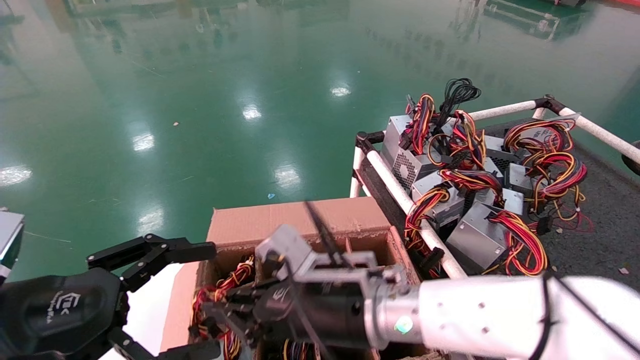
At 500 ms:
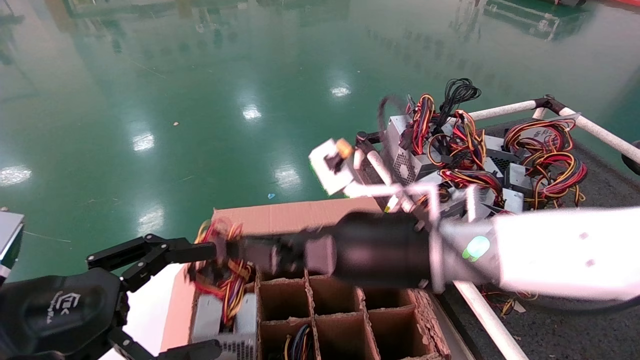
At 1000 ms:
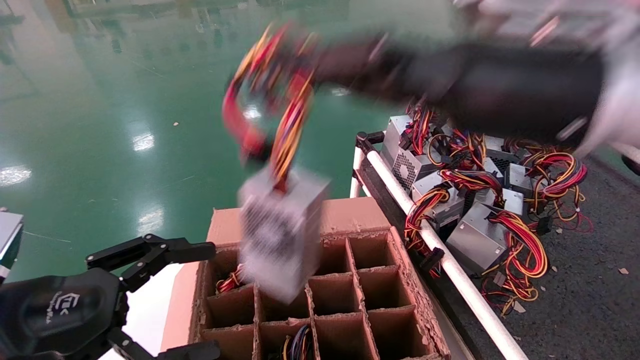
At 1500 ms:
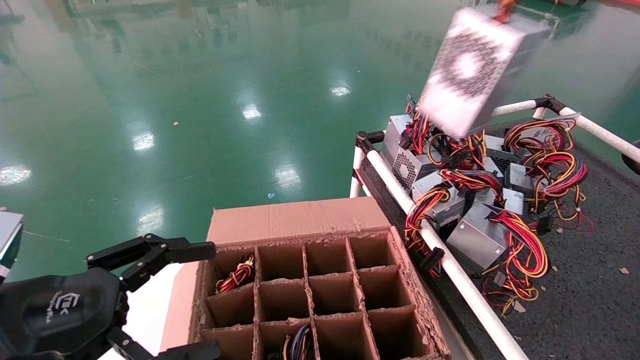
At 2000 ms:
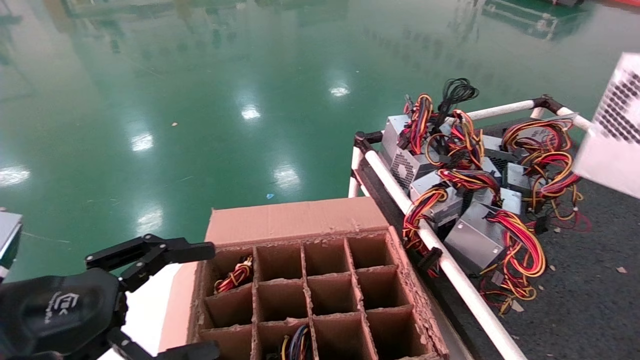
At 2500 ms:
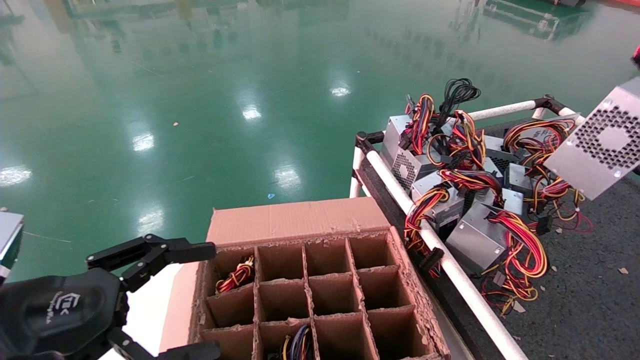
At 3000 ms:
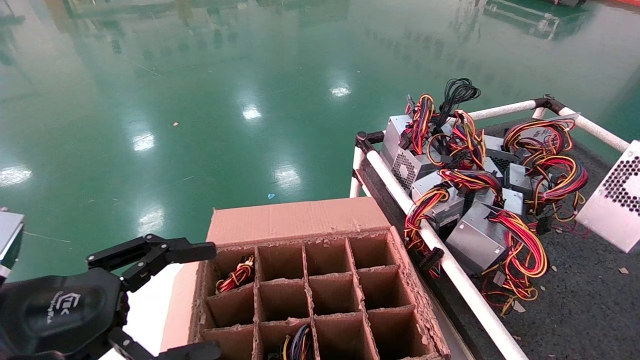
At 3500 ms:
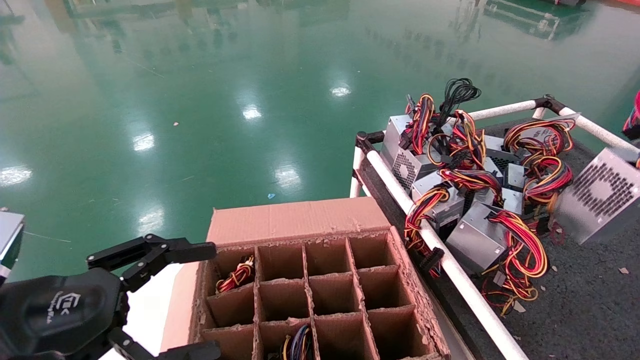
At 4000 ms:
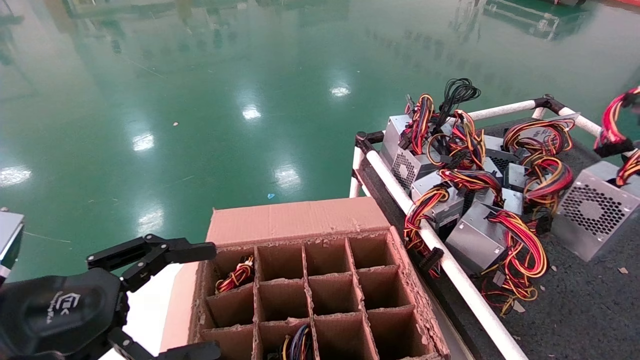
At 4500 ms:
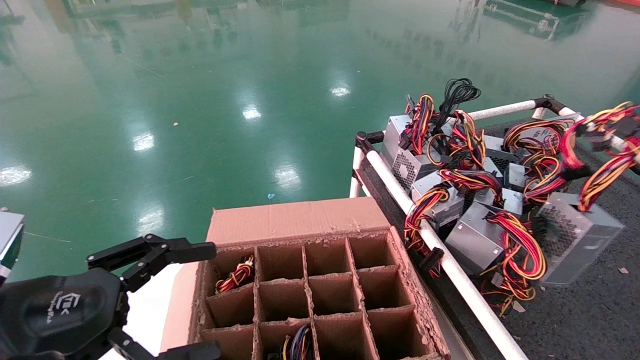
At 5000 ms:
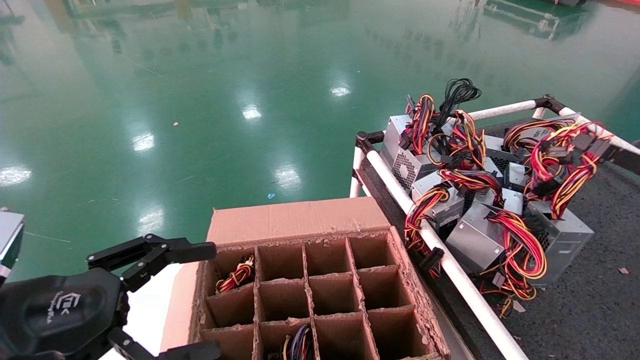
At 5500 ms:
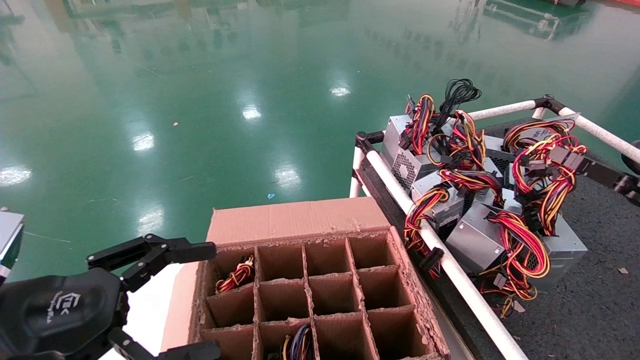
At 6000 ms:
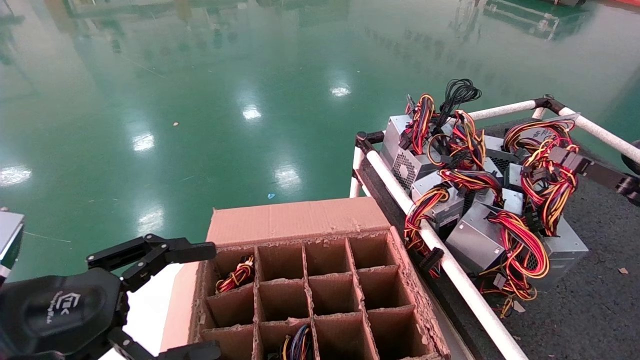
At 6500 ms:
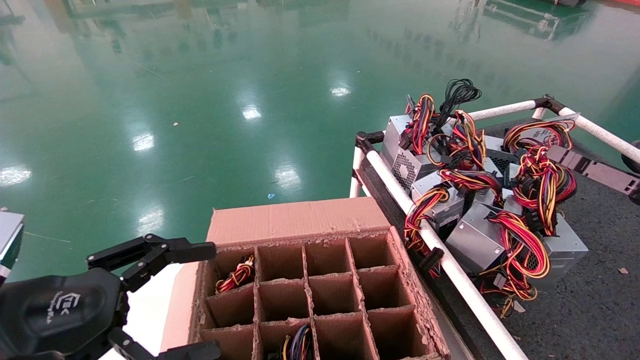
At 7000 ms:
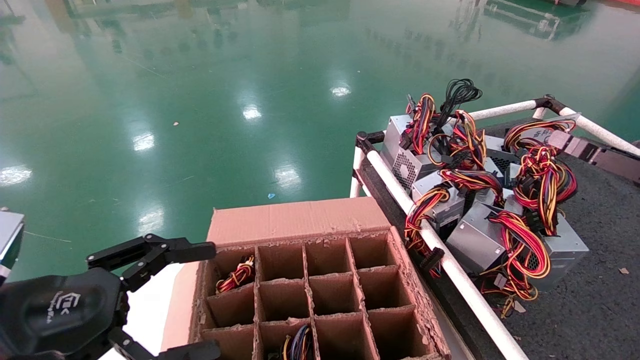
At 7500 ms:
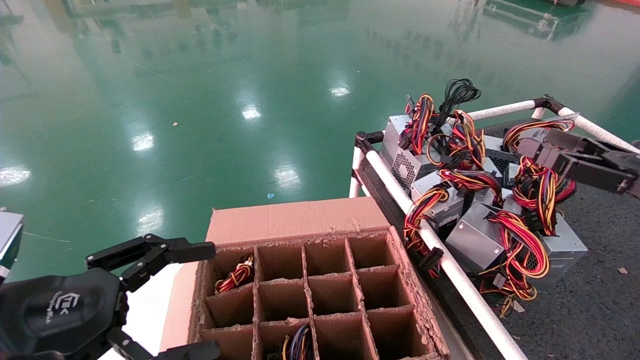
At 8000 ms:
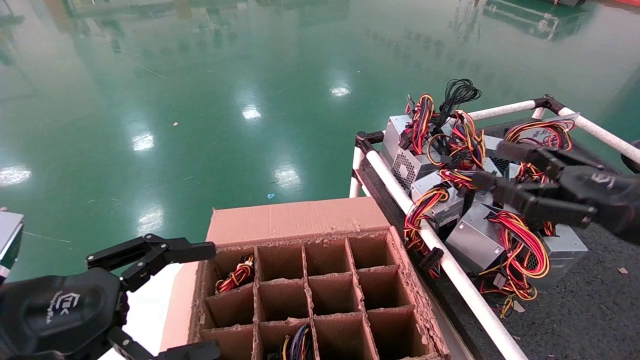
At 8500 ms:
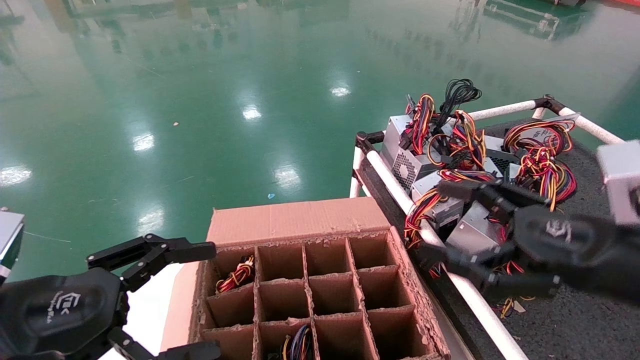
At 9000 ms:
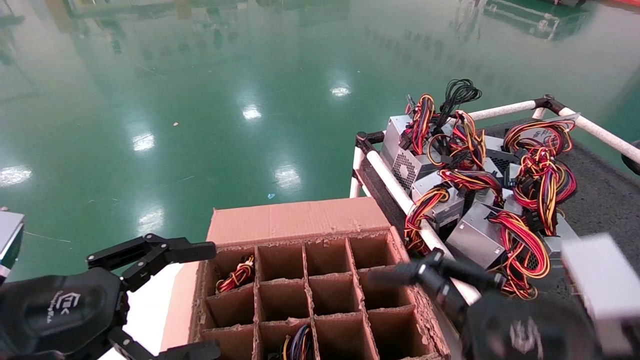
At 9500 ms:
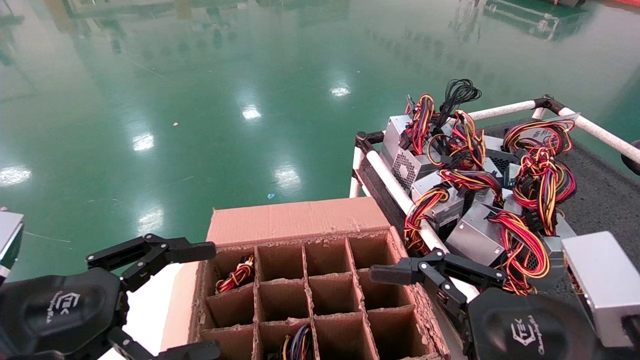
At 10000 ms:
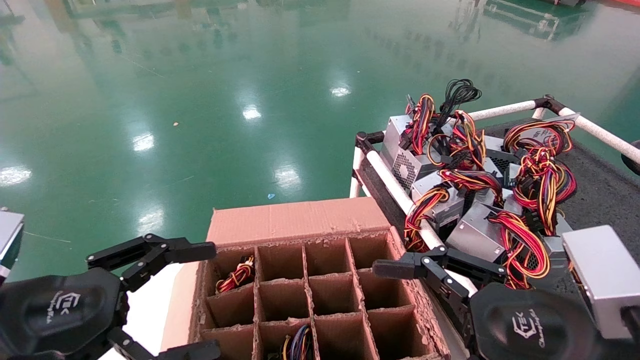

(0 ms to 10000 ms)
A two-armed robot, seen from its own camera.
Step, 0 ms - 6500 ms: Place the power supply on the operating table.
0 ms - 2000 ms: The right gripper moves to the right and upward, approximately 50 cm.
2000 ms - 4000 ms: The right gripper heads downward, to the right and forward, covering roughly 15 cm.
4000 ms - 6000 ms: The right gripper moves forward and to the left, roughly 10 cm.
6000 ms - 8000 ms: The right gripper moves to the left, some 10 cm, and opens up.
8000 ms - 10000 ms: The right gripper travels to the left, backward and downward by about 15 cm.
